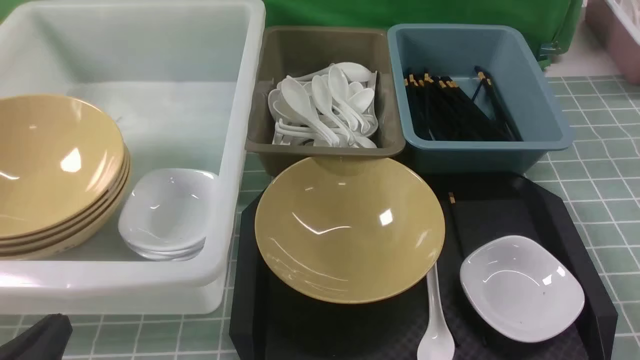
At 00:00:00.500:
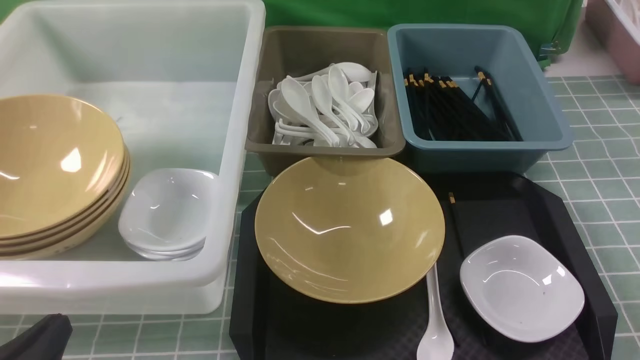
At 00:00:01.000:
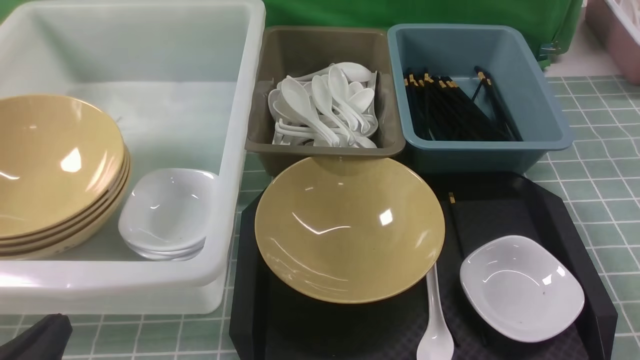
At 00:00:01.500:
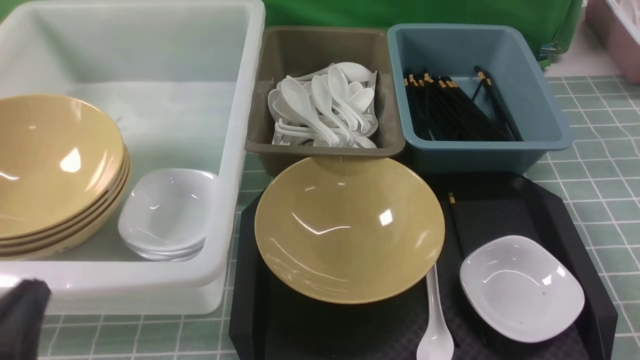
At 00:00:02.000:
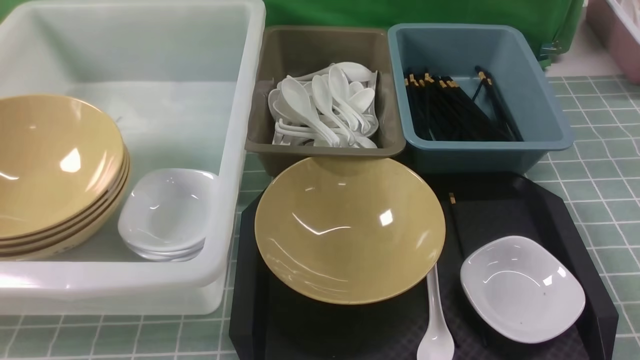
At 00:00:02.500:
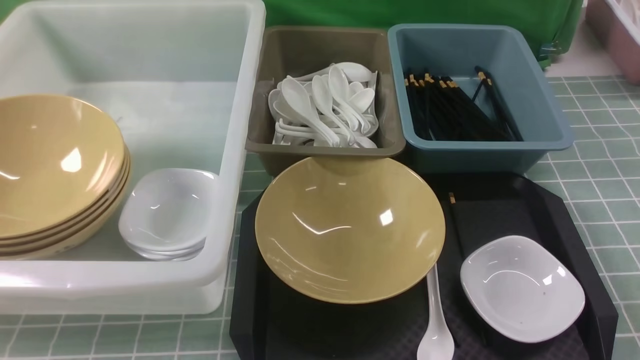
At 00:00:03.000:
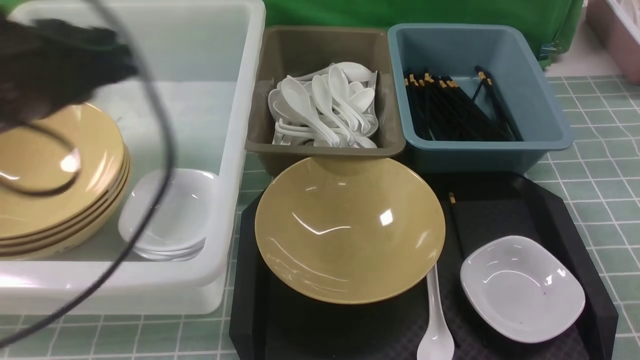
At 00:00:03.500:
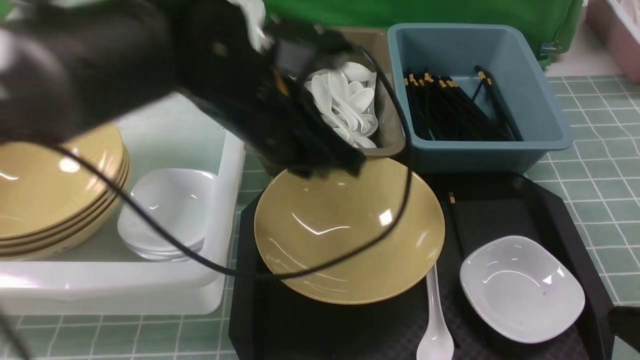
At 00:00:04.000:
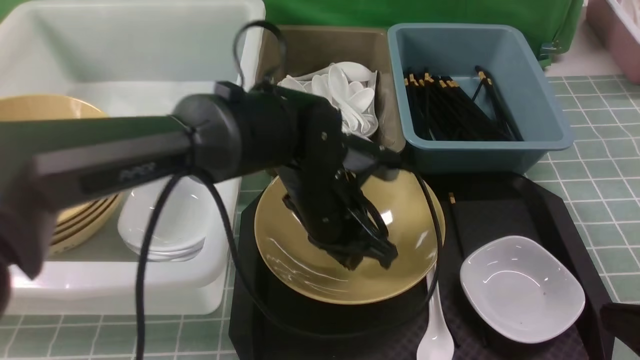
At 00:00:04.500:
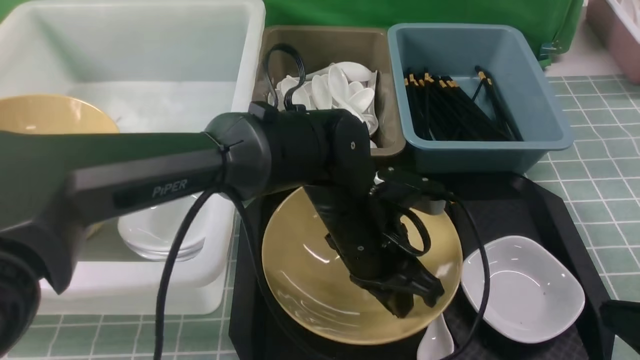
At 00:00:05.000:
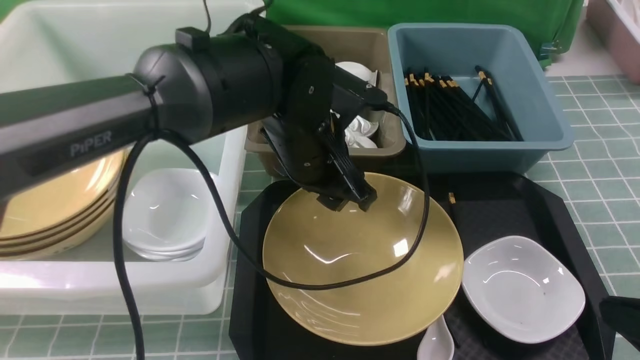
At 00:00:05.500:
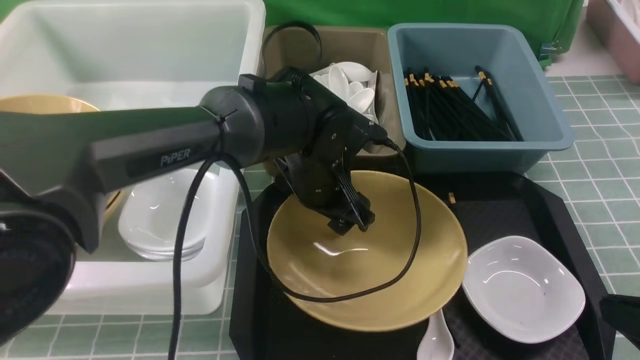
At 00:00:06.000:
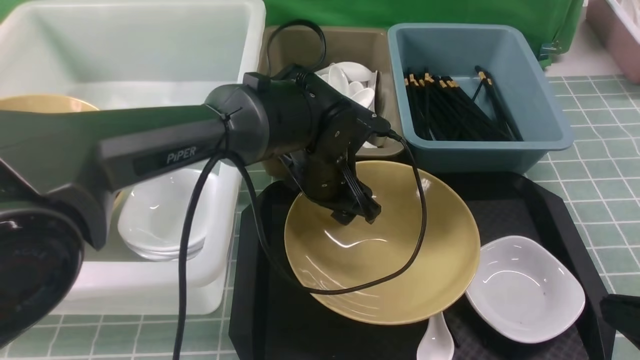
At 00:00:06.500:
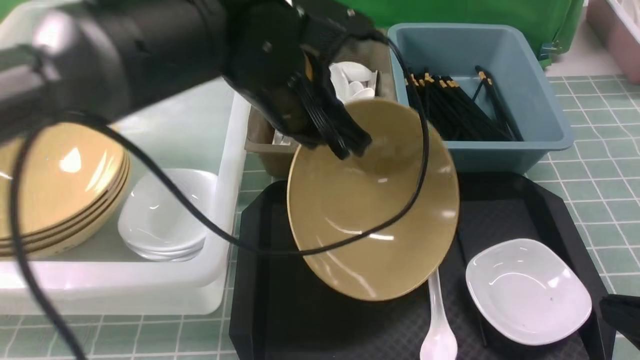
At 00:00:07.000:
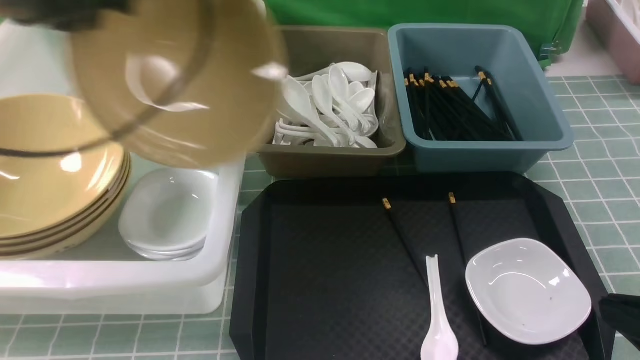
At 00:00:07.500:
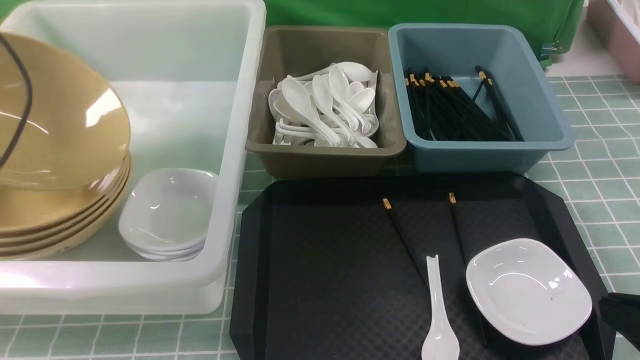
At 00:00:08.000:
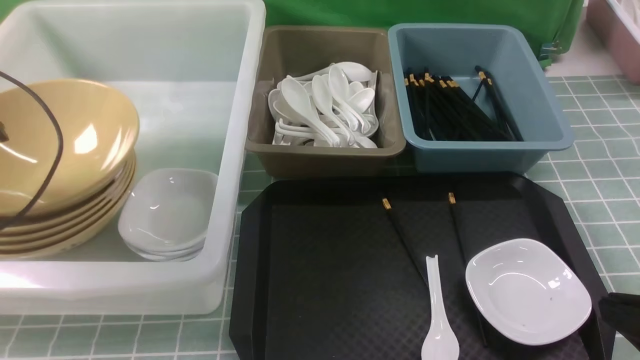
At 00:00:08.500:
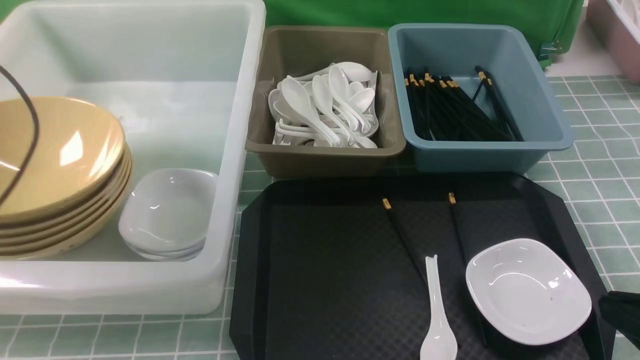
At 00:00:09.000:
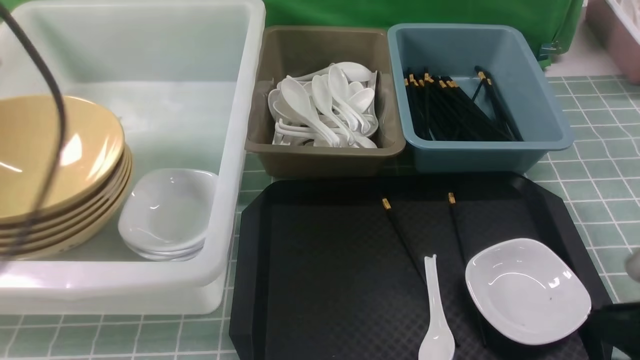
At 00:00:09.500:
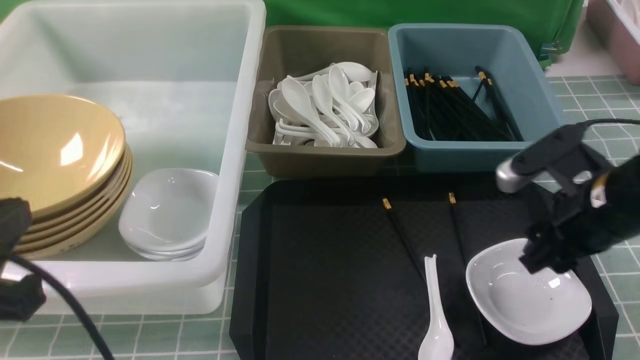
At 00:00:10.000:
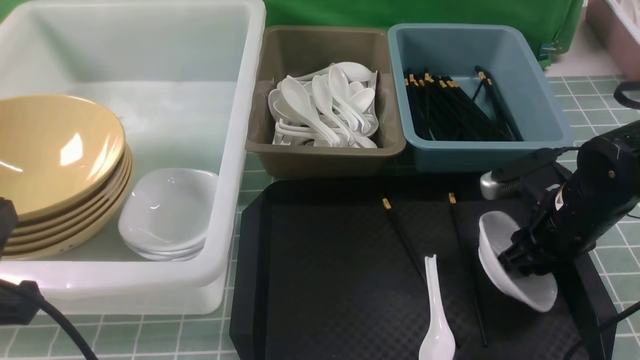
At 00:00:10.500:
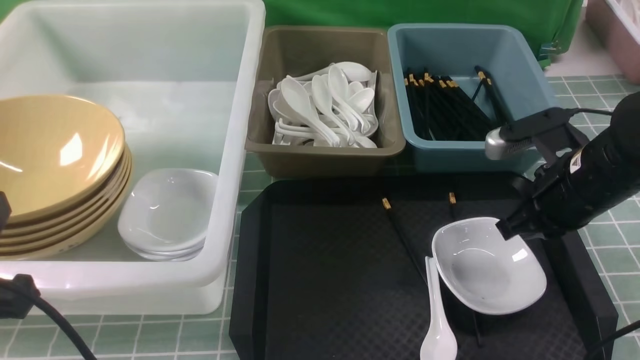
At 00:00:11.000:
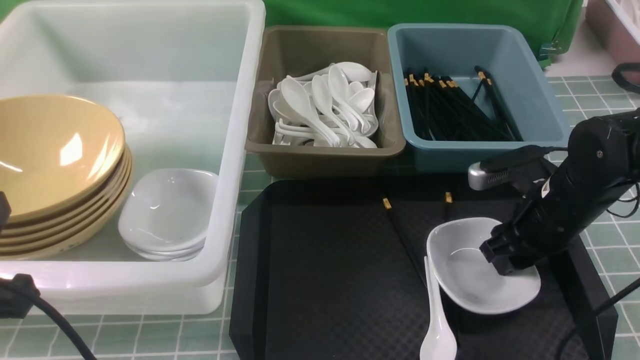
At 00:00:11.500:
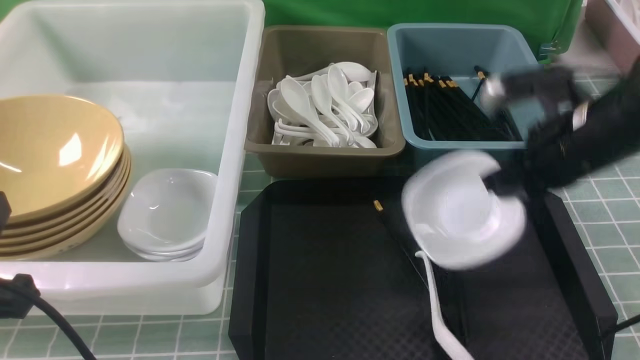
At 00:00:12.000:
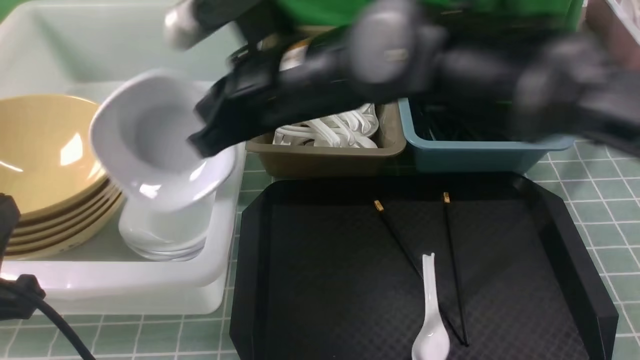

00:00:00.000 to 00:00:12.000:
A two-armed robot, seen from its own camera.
Task of the whole recording: on blue table put chopsticks spoon bowls plates into blue grey white boxes.
Step, 00:00:00.000 to 00:00:06.500: use the left arm to grab the yellow noodle bowl on the left.
Step, 00:00:07.000 to 00:00:08.500: use the left arm to put the noodle bowl into the large storage box on the left.
Step, 00:00:09.000 to 00:00:11.000: use the right arm to grab the plate.
00:00:00.000 to 00:00:02.000: The left gripper shifts roughly 10 cm upward.
00:00:02.000 to 00:00:04.000: The right gripper travels forward by about 5 cm, and goes upward and returns, some 10 cm each way; the left gripper shifts approximately 35 cm forward and to the right.
00:00:04.000 to 00:00:06.000: The left gripper opens its fingers.
00:00:06.000 to 00:00:08.000: The left gripper goes some 35 cm to the left, and closes and opens again.
00:00:08.000 to 00:00:10.000: The right gripper is displaced forward by some 20 cm, and opens its fingers; the left gripper travels backward and to the right by about 25 cm, and closes.
00:00:10.000 to 00:00:12.000: The right gripper goes roughly 30 cm to the left and upward, and closes up.

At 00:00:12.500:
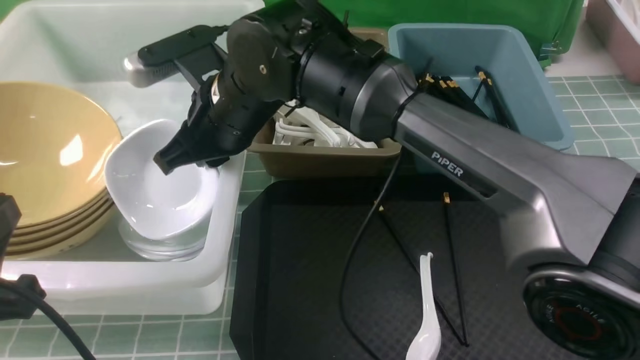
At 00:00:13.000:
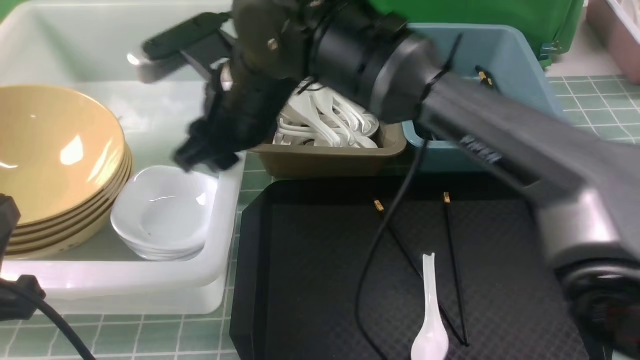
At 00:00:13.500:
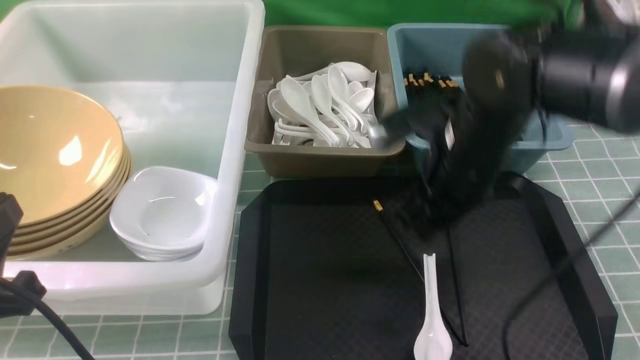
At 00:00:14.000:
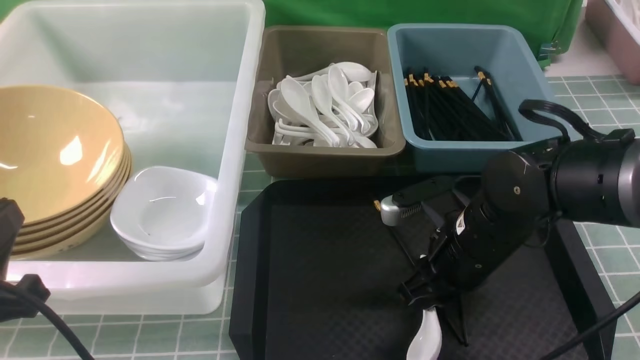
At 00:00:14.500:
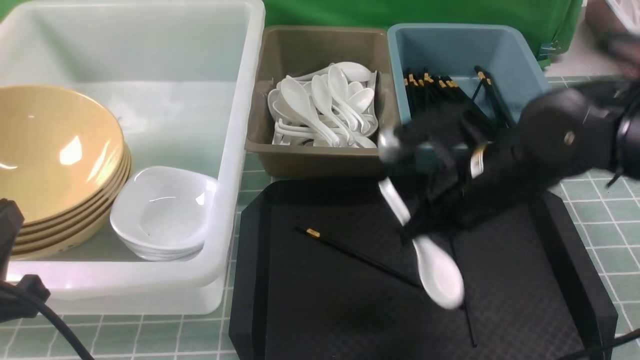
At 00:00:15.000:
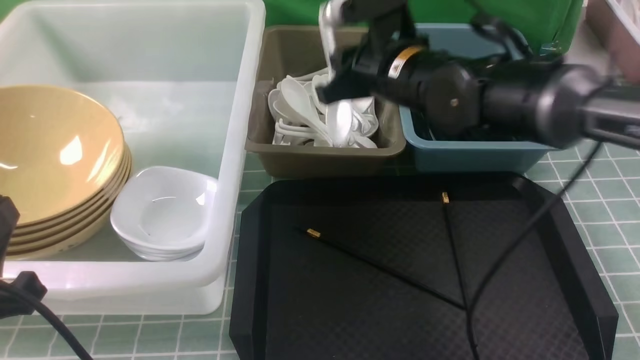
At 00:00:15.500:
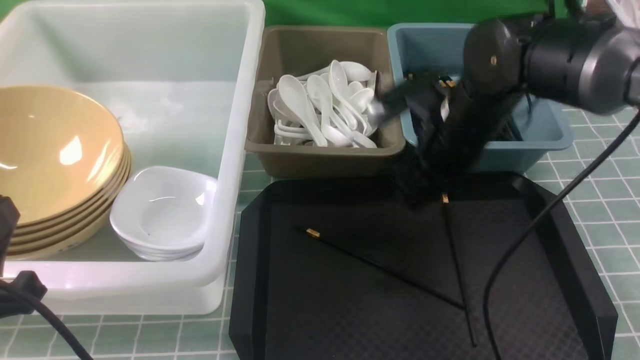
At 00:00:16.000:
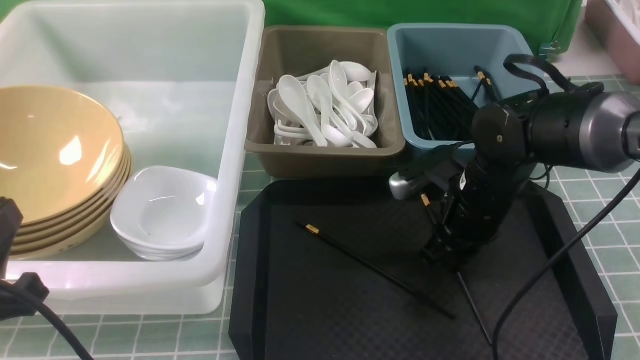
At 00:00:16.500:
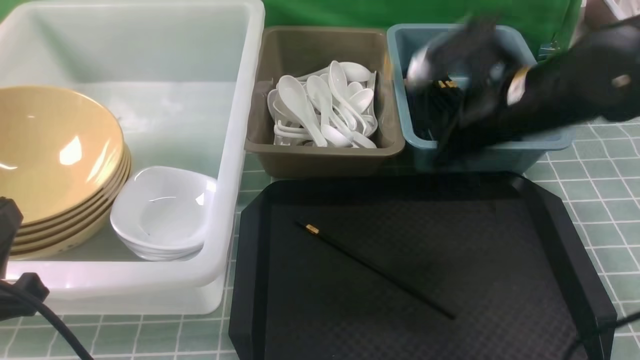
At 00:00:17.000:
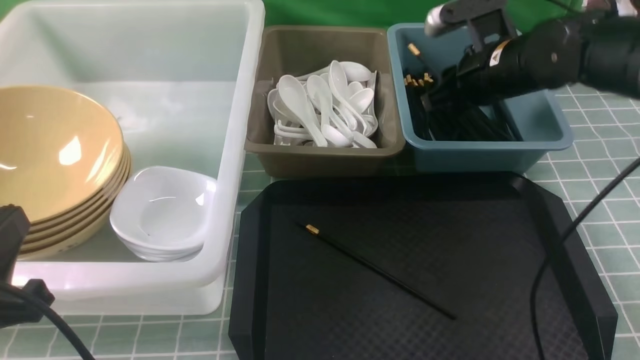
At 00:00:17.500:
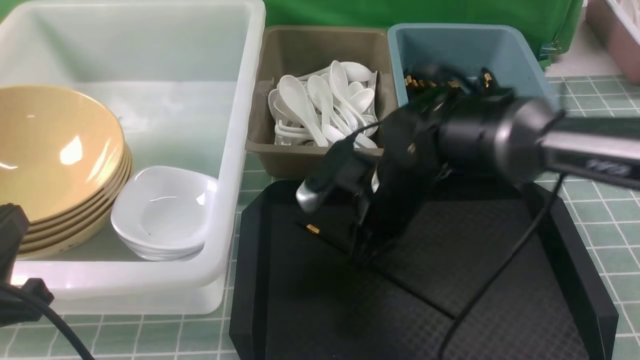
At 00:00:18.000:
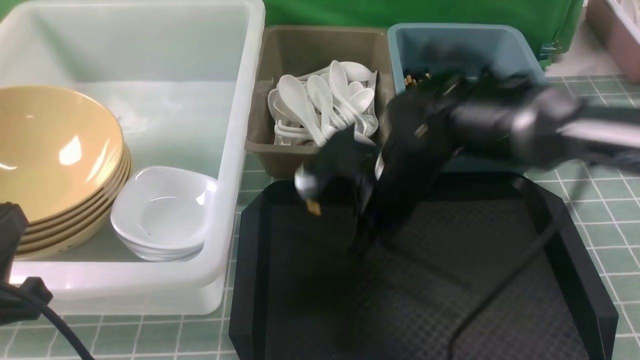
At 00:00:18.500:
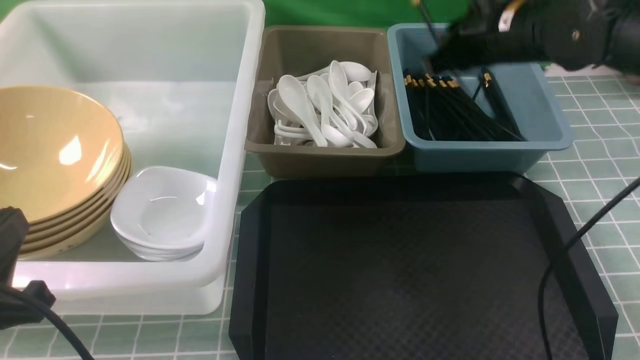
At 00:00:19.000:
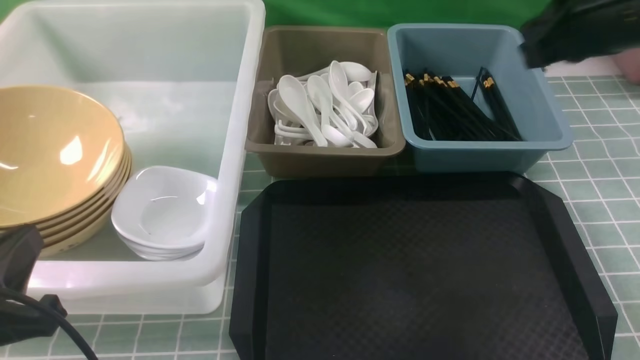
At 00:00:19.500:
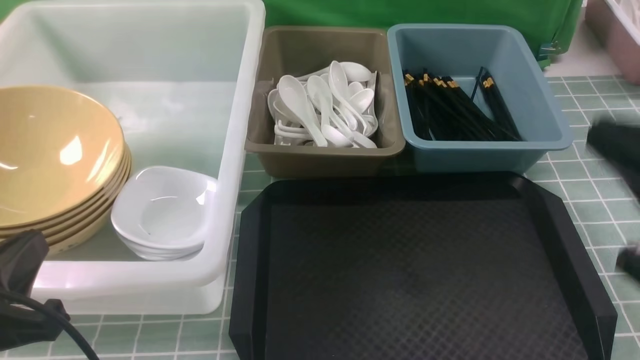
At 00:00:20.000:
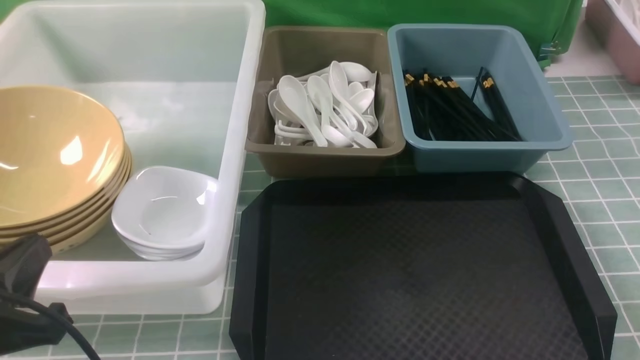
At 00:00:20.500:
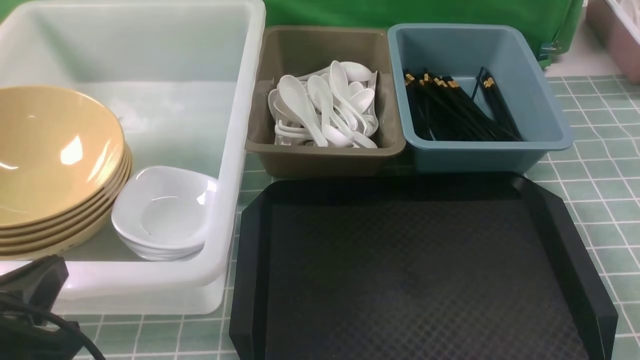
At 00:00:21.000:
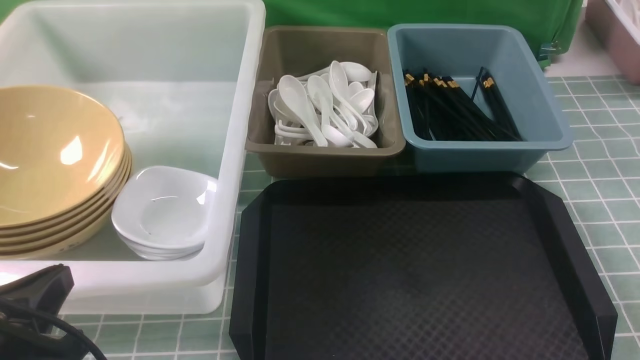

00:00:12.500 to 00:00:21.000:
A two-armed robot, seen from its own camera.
Task of the whole recording: on blue table put chopsticks spoon bowls plates into blue grey white boxes.
Step, 00:00:13.500 to 00:00:14.000: use the right arm to grab the soup spoon in the middle.
Step, 00:00:14.500 to 00:00:15.000: use the right arm to put the soup spoon into the small storage box in the middle.
Step, 00:00:15.500 to 00:00:16.000: use the right arm to grab a chopstick.
Step, 00:00:16.500 to 00:00:17.000: use the right arm to put a chopstick into the small storage box on the right.
Step, 00:00:17.500 to 00:00:18.000: use the right arm to grab a chopstick.
00:00:12.500 to 00:00:14.500: The right gripper heads to the right, covering approximately 20 cm, and opens and closes again.
00:00:14.500 to 00:00:16.500: The right gripper goes downward and returns, some 10 cm each way, and opens, then closes again.
00:00:16.500 to 00:00:19.000: The right gripper is displaced upward, backward and to the right by some 15 cm, and opens, then closes once more.
00:00:19.000 to 00:00:21.000: The right gripper goes roughly 30 cm backward, downward and to the right.
